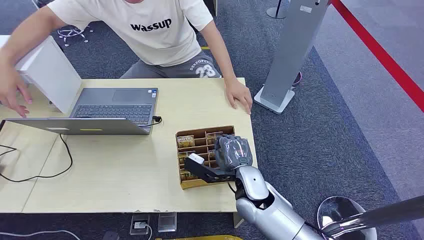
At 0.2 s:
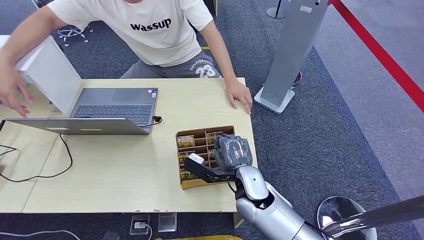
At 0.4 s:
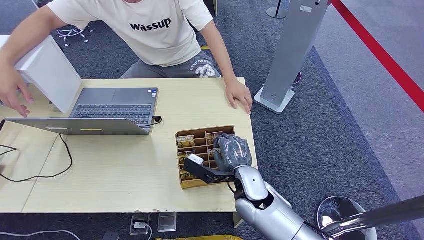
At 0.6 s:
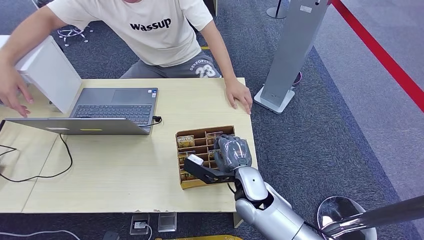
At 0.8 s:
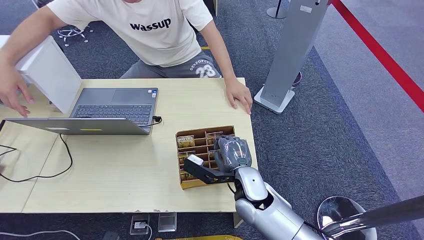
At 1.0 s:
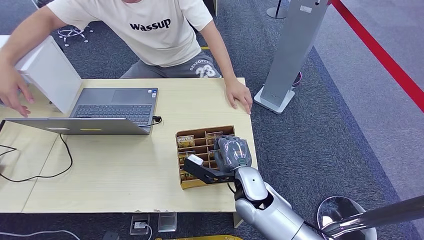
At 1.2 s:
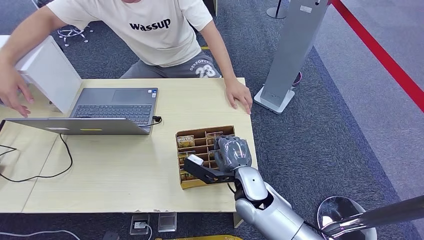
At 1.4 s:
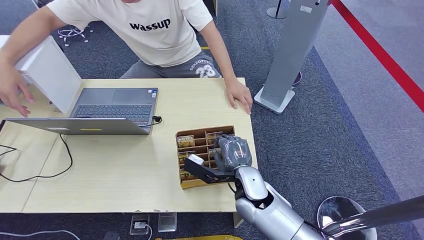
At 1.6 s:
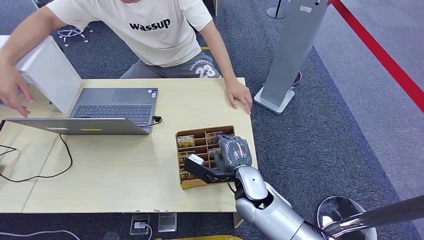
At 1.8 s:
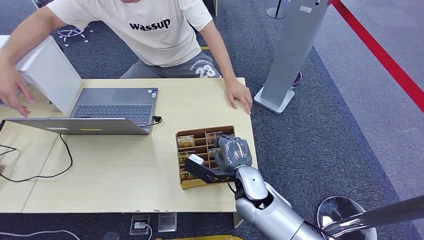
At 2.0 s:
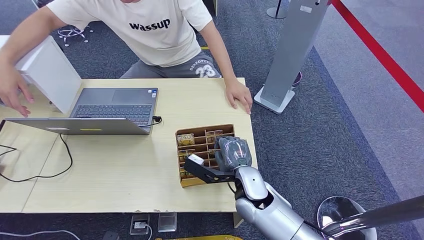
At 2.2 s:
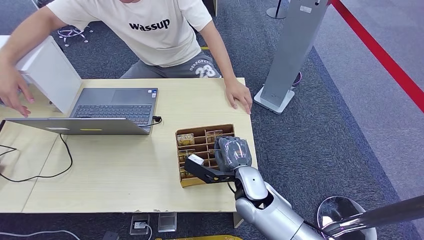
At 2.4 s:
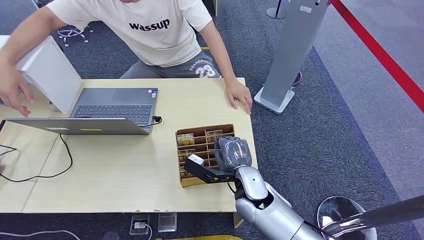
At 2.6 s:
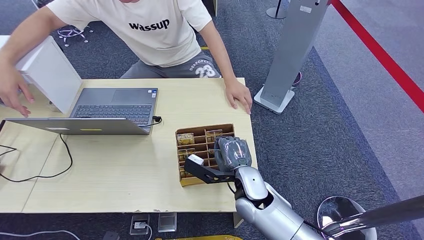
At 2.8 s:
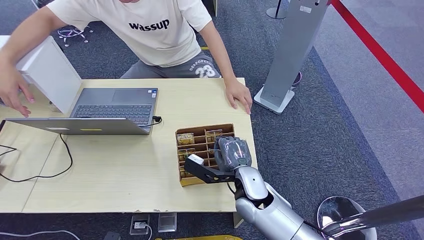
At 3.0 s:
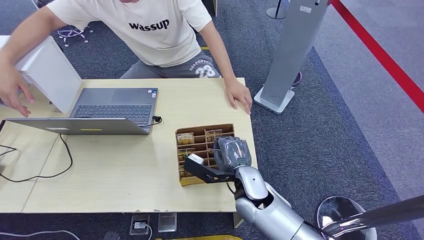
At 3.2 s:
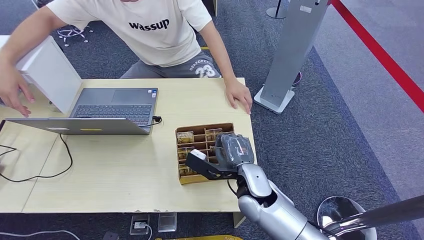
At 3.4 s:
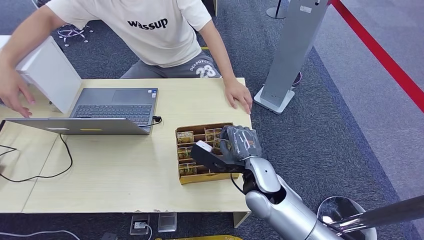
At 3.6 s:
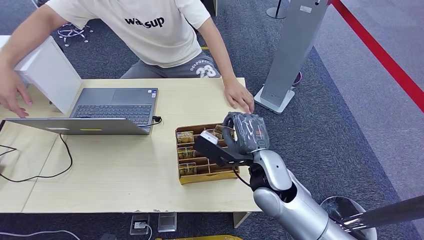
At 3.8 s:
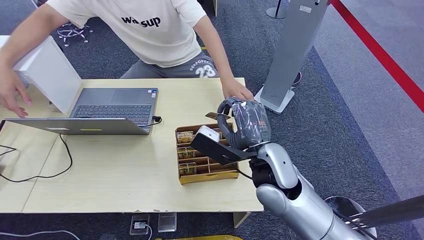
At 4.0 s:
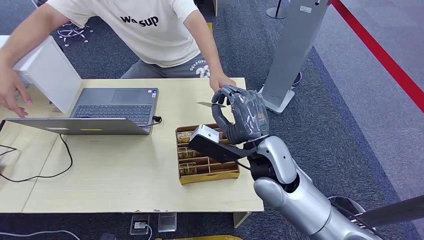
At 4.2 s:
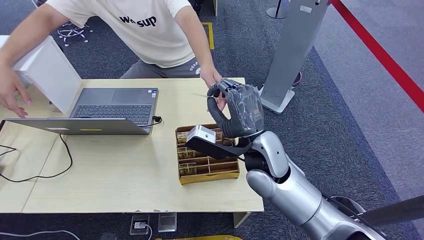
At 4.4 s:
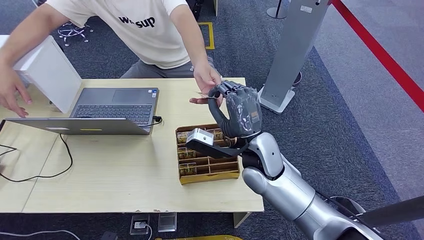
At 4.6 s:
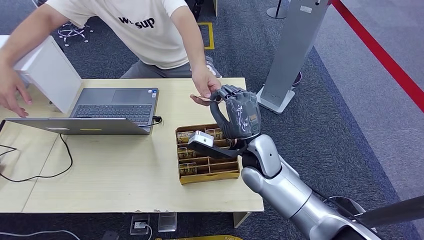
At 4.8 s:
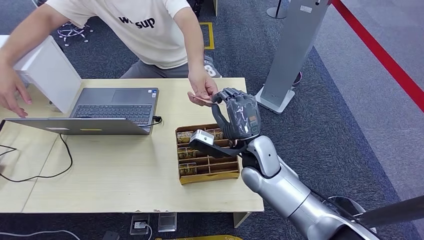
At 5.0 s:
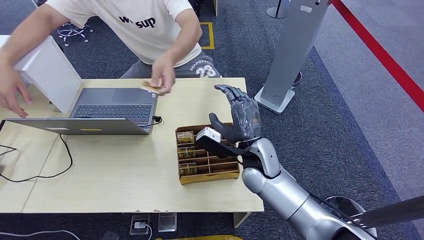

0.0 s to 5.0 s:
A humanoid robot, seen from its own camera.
Step, 0.0 to 3.4 s: Pick up the room card from the card holder.
Step, 3.6 to 5.0 s: Hand the room card to the target.
1.6 to 3.4 s: The hands make only small movements.
3.4 to 5.0 s: The right hand reaches about 10 cm upward, then returns.
